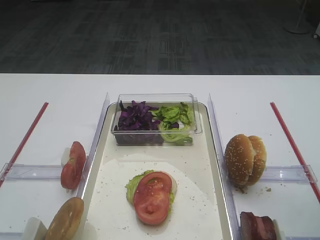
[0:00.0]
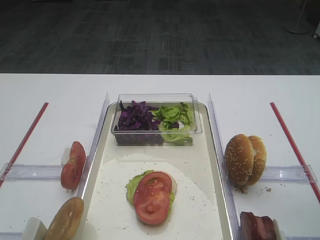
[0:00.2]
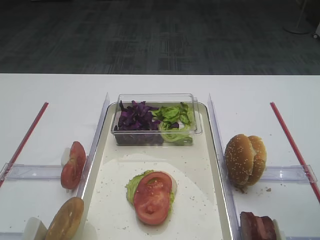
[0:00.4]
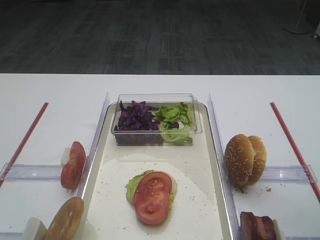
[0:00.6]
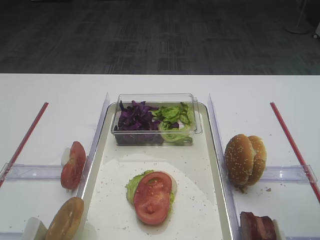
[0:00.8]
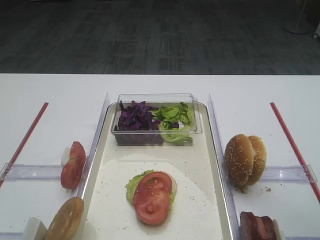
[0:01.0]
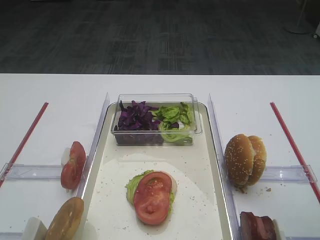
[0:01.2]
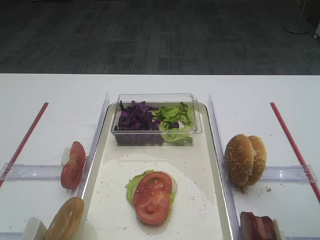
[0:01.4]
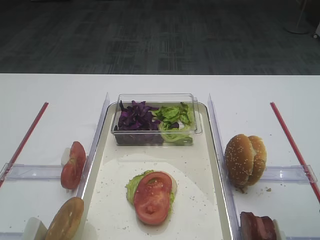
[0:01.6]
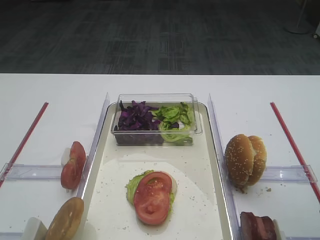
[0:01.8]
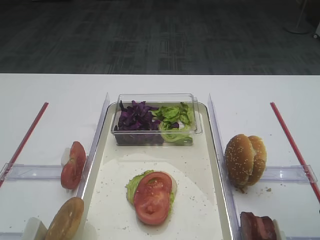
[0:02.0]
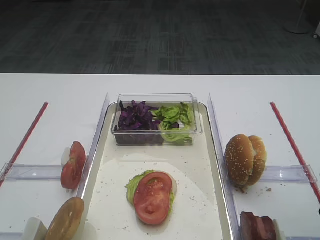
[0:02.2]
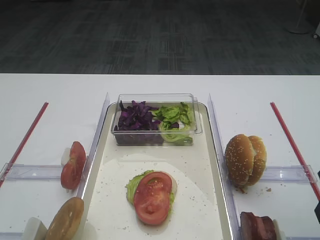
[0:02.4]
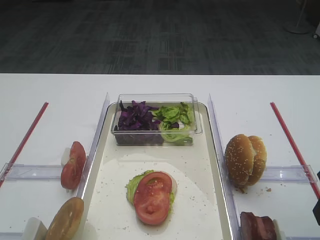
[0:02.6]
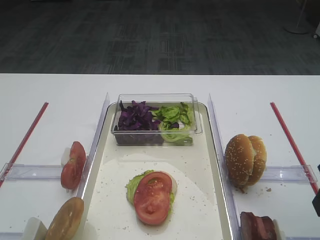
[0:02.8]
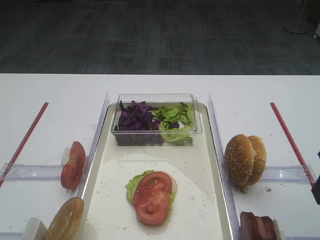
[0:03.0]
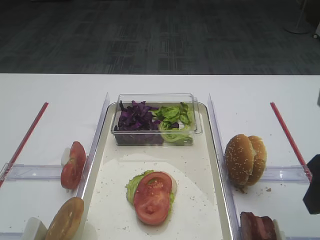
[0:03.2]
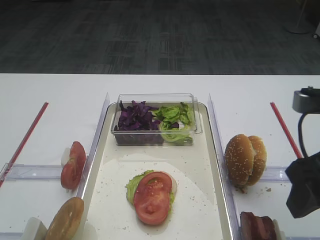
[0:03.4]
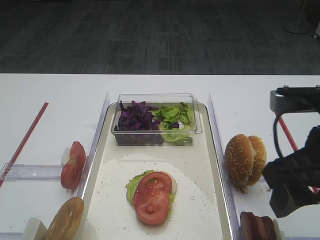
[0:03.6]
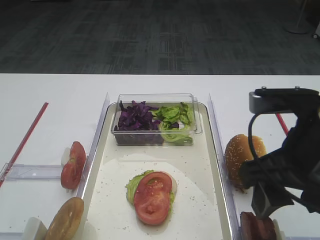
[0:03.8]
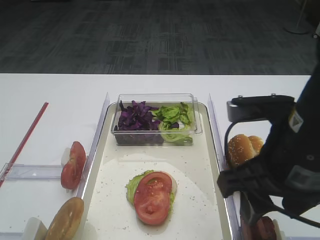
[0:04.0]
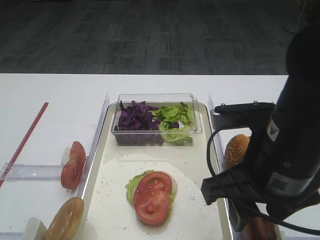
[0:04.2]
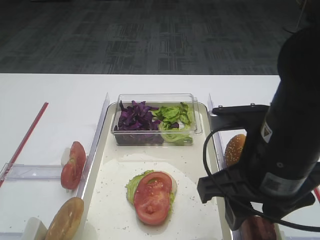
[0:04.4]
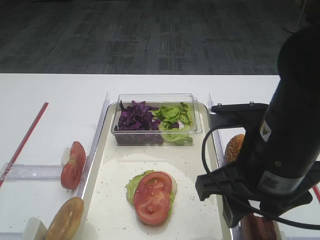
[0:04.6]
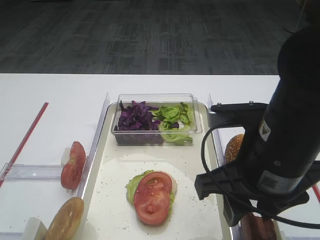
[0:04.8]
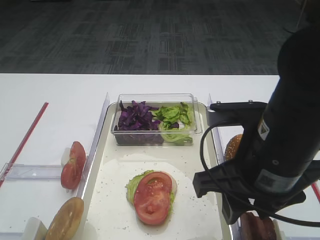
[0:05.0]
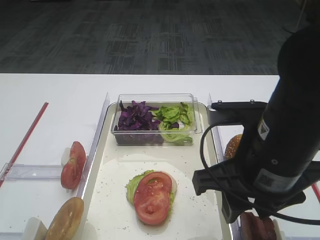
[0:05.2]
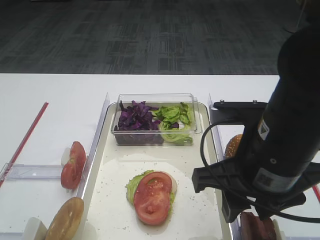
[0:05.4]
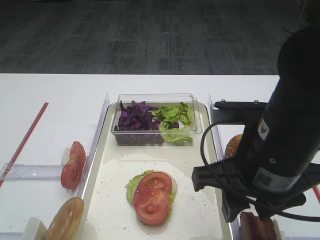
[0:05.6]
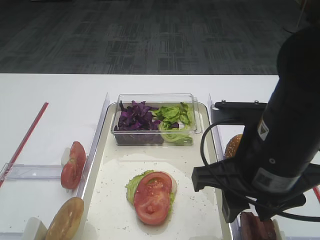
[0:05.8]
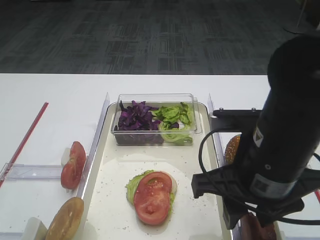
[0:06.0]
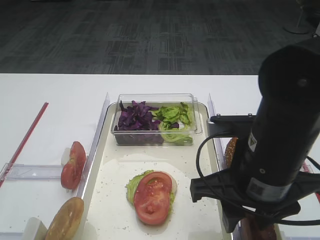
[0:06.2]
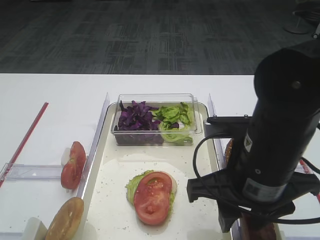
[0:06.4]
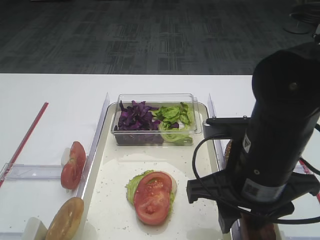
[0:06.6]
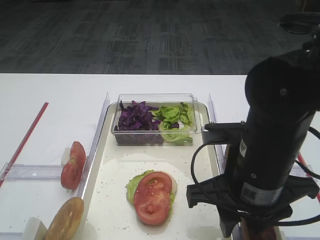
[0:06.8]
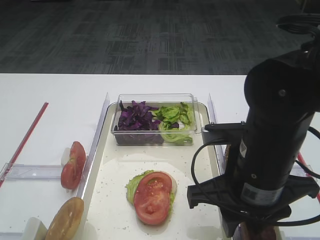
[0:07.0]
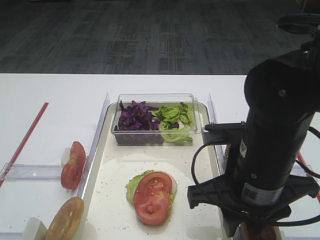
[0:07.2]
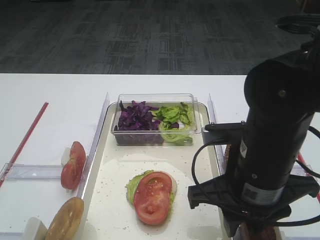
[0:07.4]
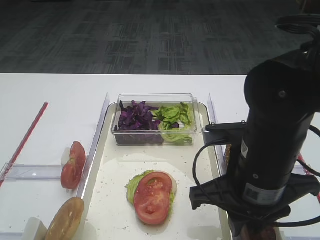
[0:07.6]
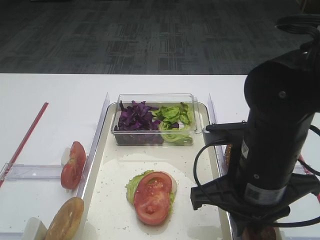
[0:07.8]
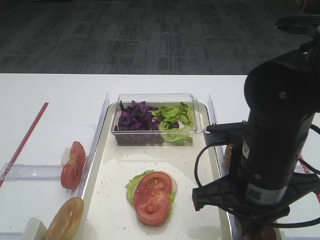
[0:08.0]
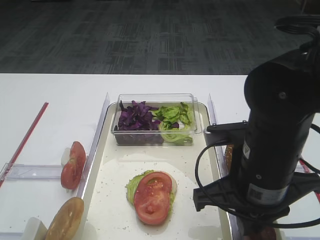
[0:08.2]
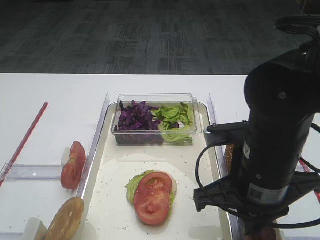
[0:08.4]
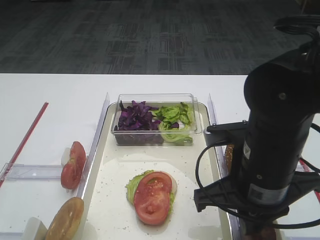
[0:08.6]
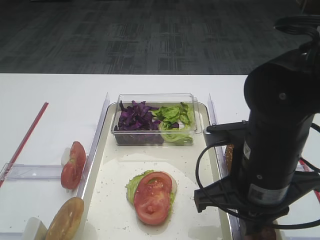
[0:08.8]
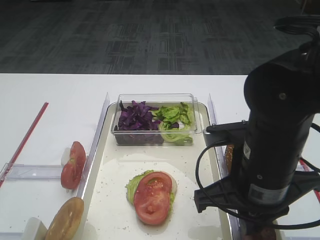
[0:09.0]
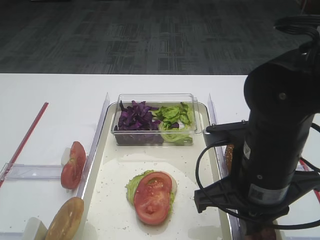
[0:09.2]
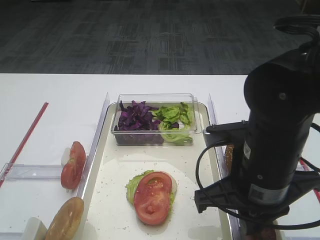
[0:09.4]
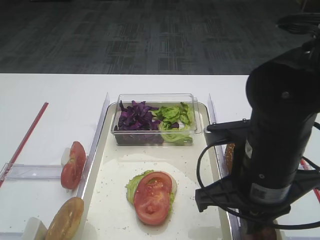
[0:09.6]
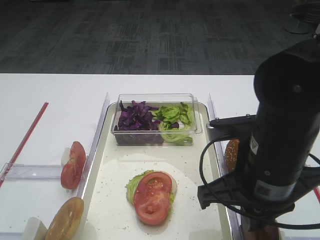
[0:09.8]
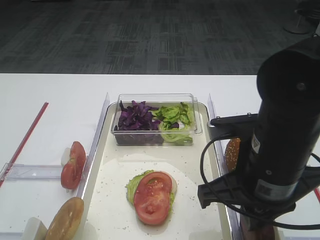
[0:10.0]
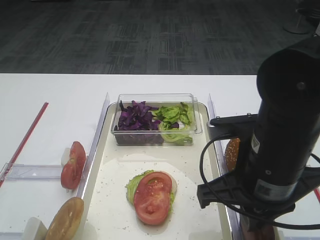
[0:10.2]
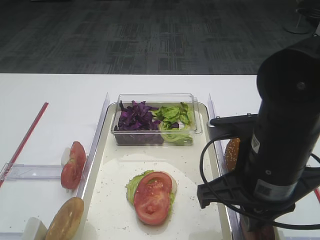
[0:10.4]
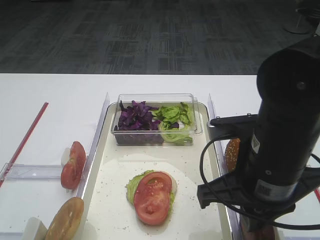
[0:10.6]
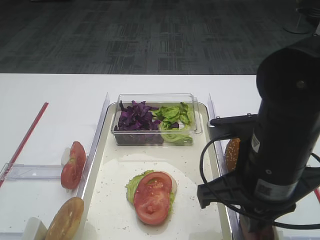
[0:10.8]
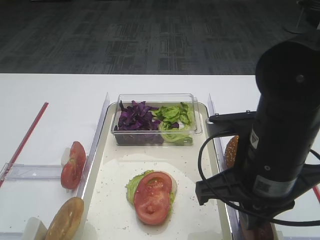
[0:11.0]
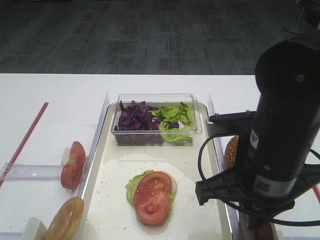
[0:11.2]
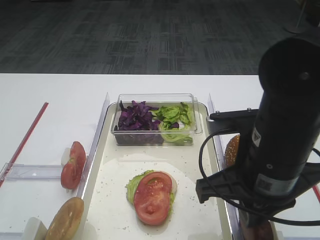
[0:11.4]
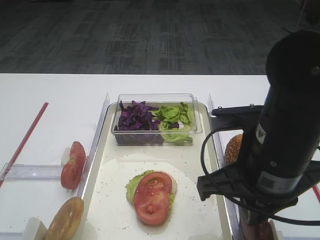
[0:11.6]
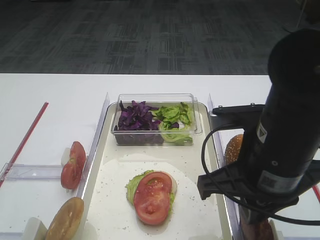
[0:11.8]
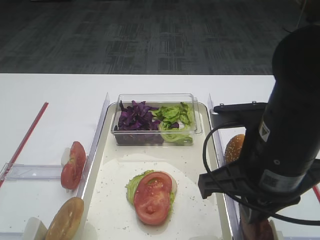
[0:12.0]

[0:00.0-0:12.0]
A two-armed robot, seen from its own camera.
Step, 0:00.0 to 0:11.4: Pick up the cutlet with the right gripper.
0:03.0 to 0:04.4: The right gripper heads to the left, covering some 15 cm.
0:04.4 to 0:07.6: The grippers stay close to where they were, moving slightly.
0:07.6 to 0:09.0: Both grippers stay about where they are.
0:09.0 to 0:12.0: The grippers make only small movements.

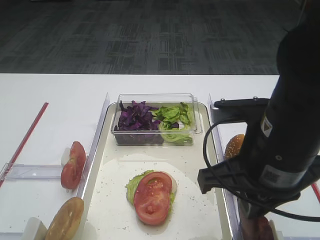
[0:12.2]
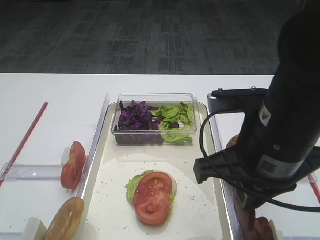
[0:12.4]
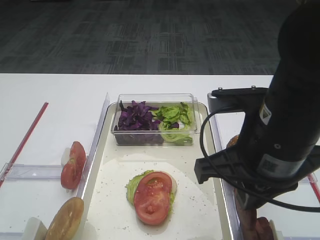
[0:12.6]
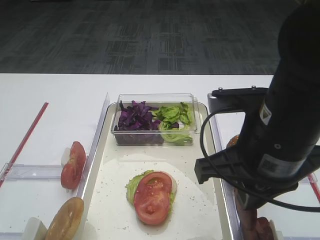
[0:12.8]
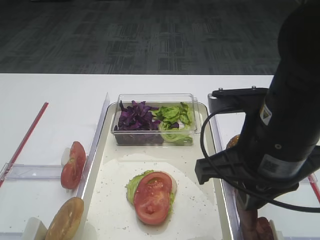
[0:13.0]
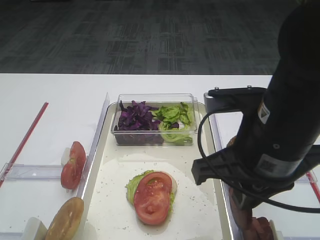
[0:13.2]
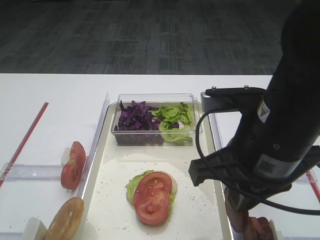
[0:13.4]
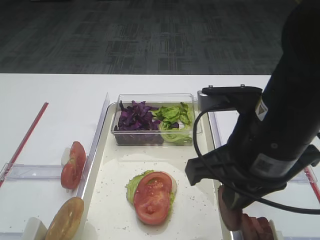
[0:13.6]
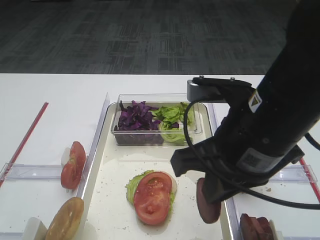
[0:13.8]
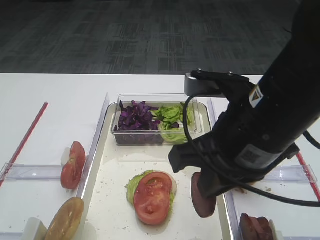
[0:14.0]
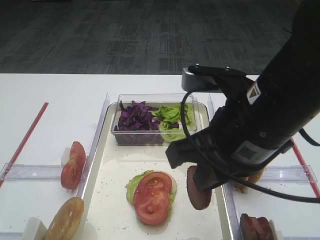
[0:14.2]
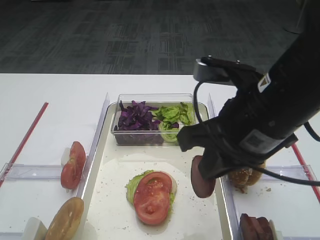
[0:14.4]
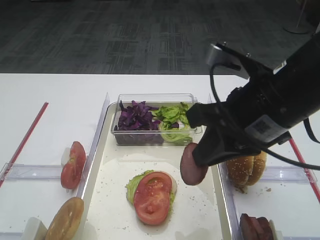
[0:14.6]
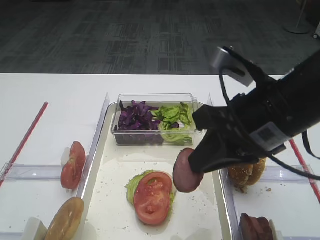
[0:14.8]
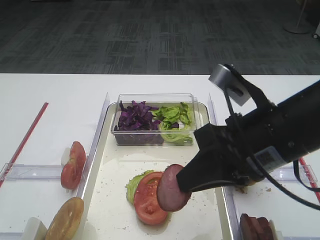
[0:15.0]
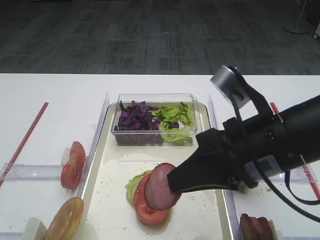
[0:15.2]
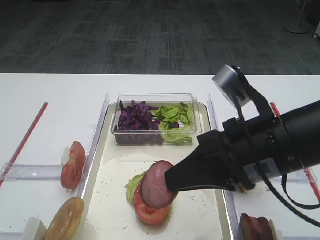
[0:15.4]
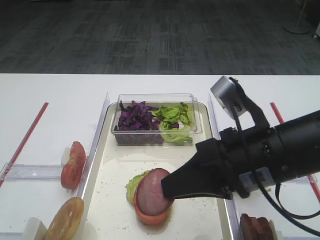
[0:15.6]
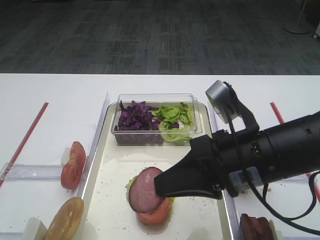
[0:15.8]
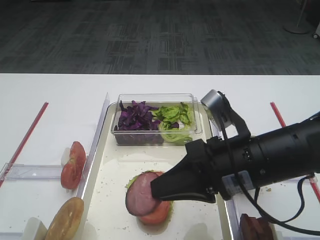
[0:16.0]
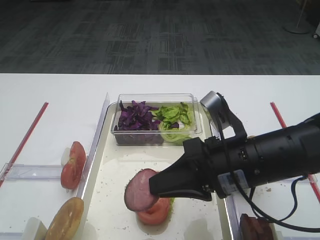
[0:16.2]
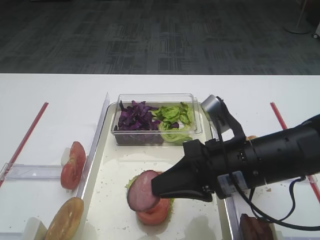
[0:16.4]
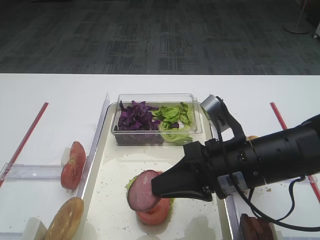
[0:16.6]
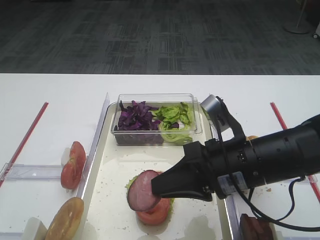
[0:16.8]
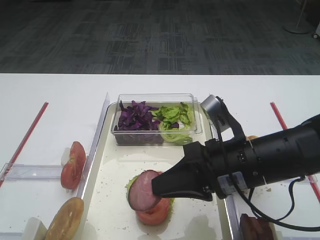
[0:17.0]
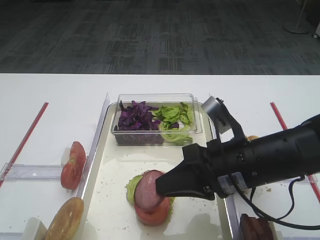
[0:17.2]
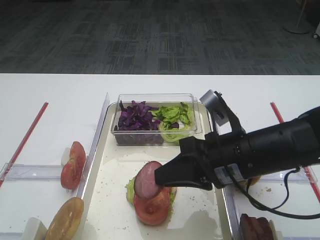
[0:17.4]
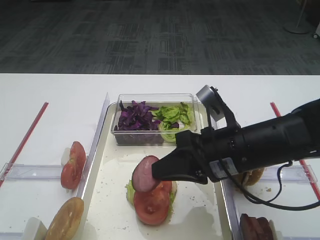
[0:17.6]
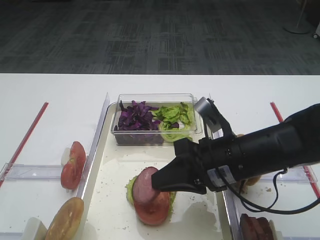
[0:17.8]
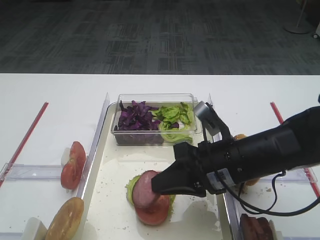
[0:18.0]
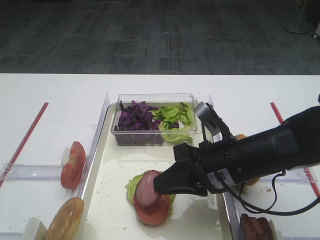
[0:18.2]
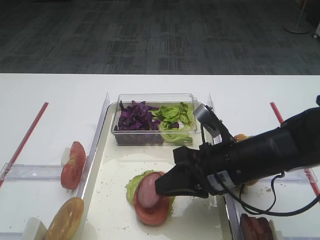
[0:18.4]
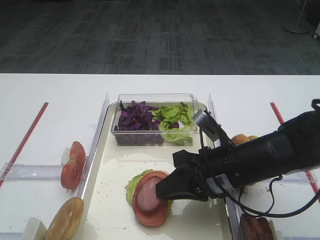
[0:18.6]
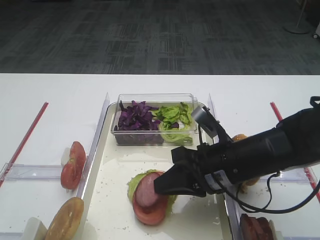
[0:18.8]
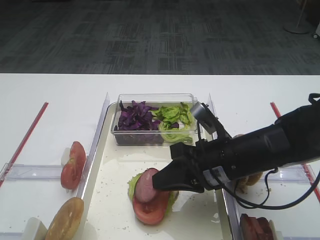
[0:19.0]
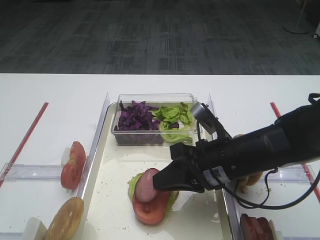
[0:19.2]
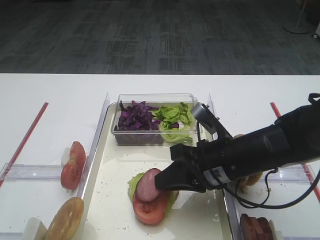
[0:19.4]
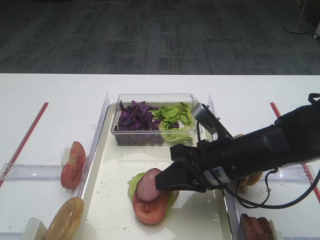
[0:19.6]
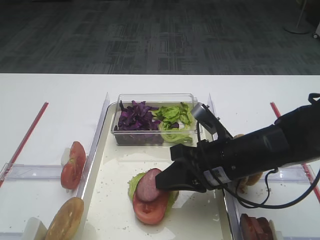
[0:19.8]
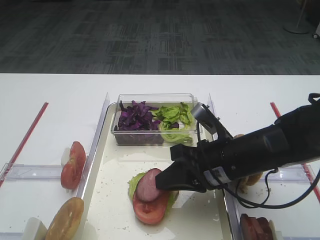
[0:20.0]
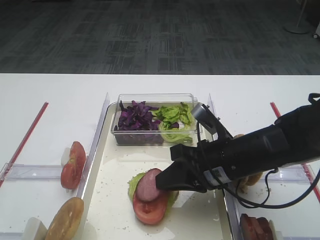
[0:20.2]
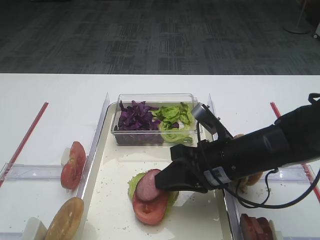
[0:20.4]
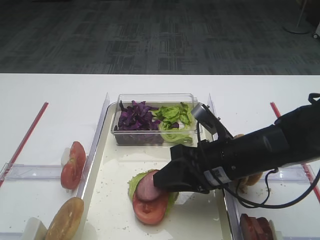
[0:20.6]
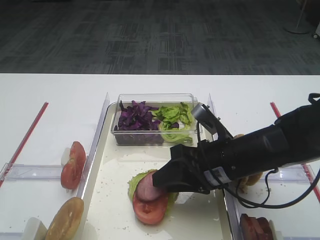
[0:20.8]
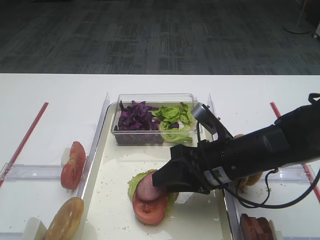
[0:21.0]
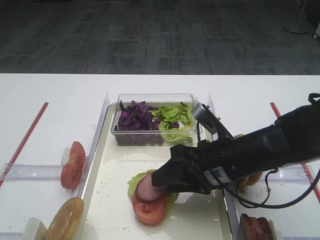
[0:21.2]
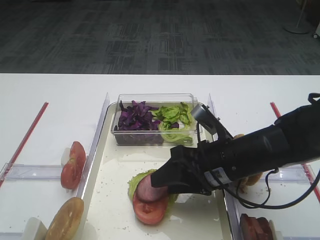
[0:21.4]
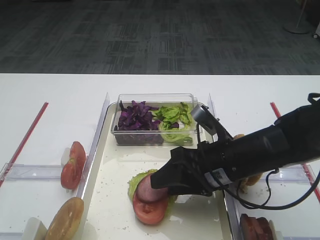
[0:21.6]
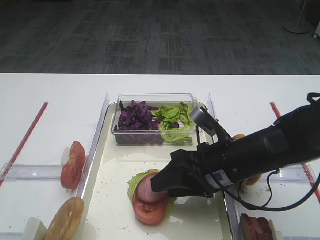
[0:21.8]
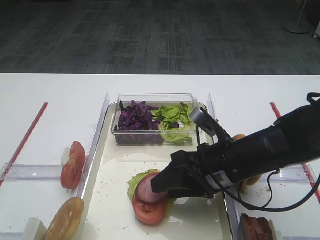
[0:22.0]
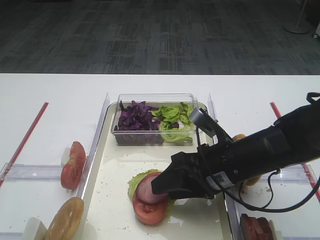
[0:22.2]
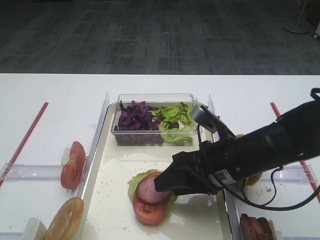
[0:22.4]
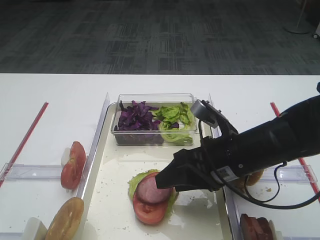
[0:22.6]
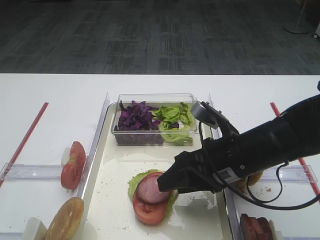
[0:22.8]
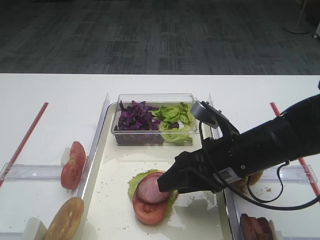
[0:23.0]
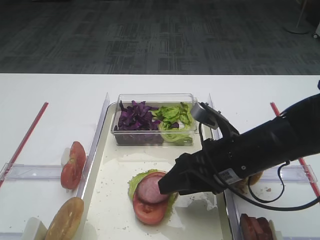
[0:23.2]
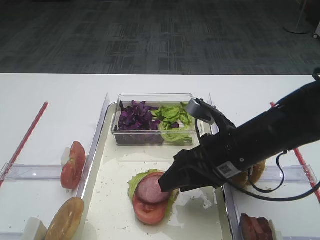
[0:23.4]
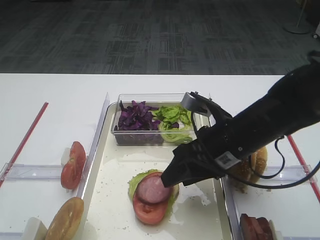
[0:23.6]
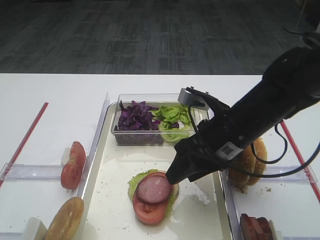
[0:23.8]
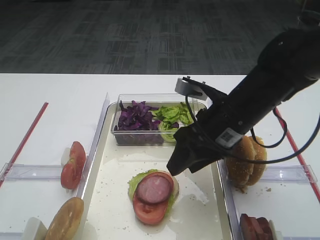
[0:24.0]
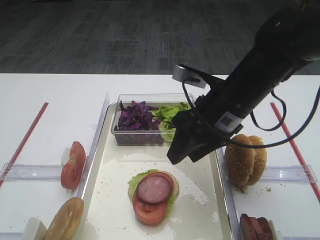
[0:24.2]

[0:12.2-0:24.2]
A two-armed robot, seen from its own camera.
Step, 0:12.2 to 0:23.8: Place the cutlet on the tomato slice with the right gripper.
0:12.2 to 0:13.8: The grippers move only a little.
0:15.2 to 0:16.6: The right gripper heads downward, covering about 5 cm.
0:16.6 to 0:19.8: The grippers make only small movements.
0:19.8 to 0:21.2: The right gripper opens.
0:21.2 to 0:22.6: The grippers stay close to where they were, moving slightly.
0:22.6 to 0:24.2: The right gripper goes approximately 5 cm upward.
